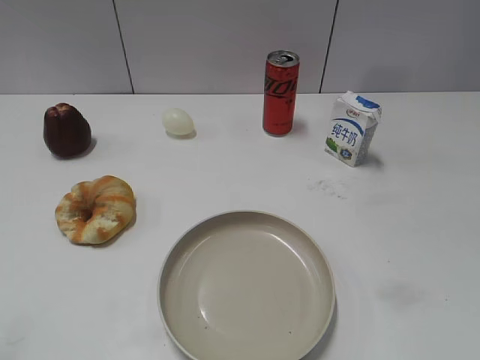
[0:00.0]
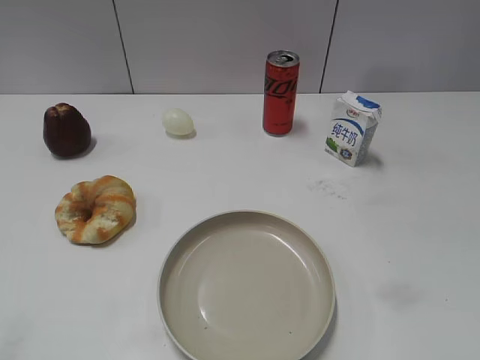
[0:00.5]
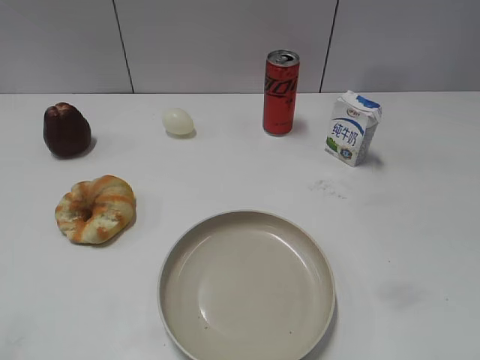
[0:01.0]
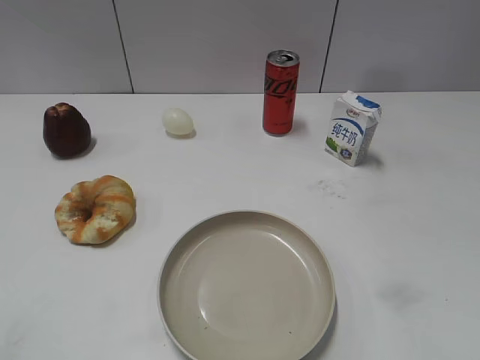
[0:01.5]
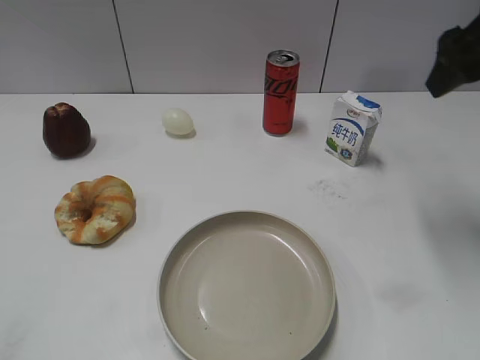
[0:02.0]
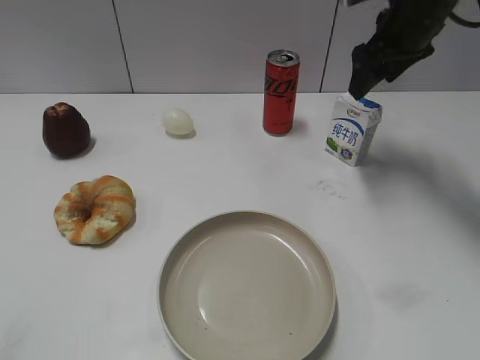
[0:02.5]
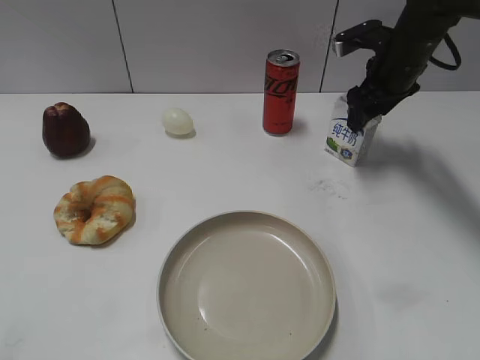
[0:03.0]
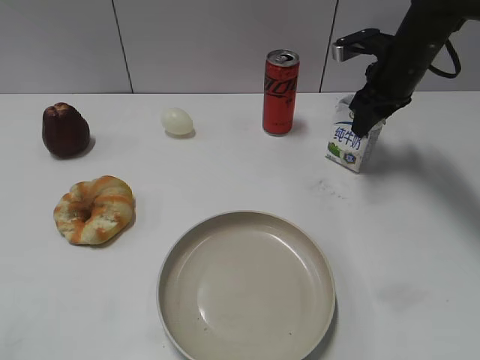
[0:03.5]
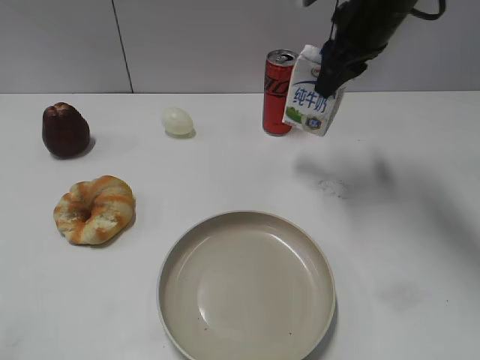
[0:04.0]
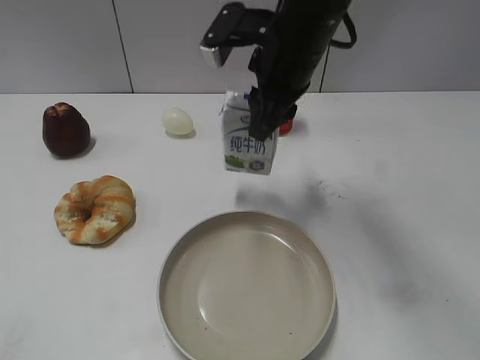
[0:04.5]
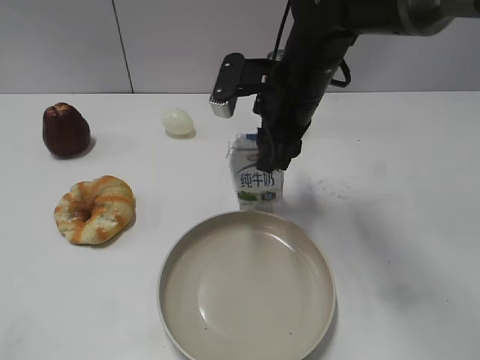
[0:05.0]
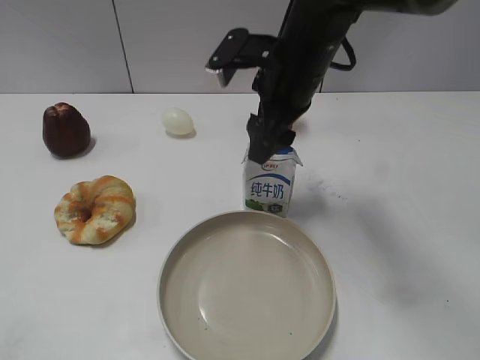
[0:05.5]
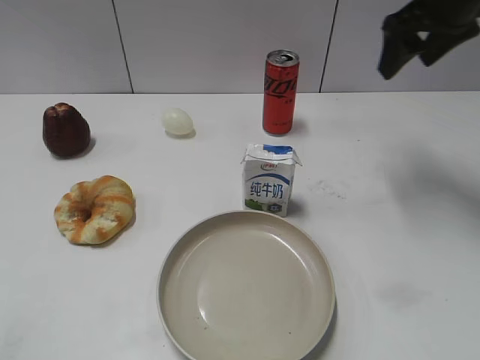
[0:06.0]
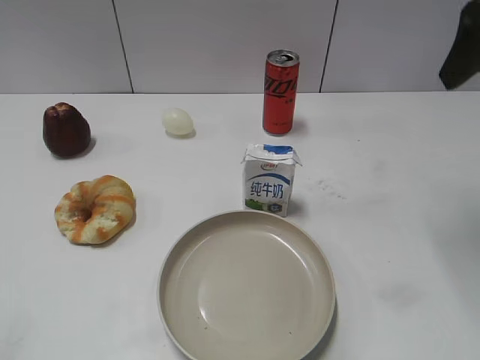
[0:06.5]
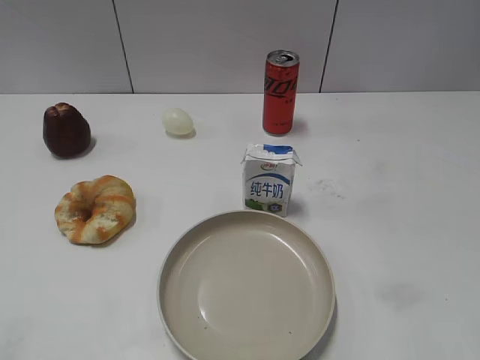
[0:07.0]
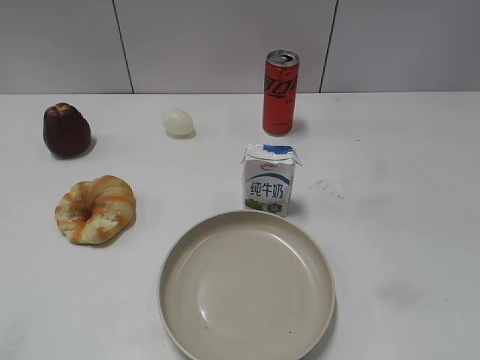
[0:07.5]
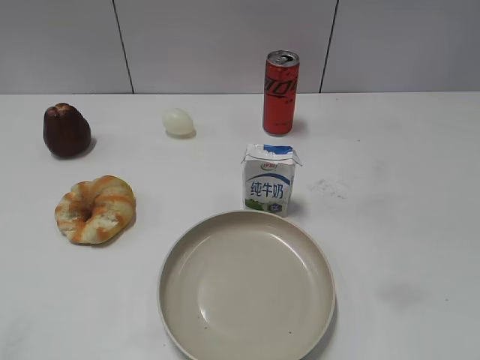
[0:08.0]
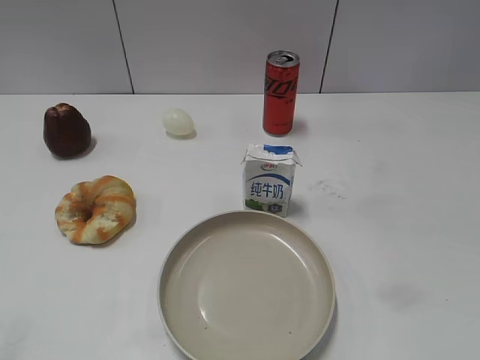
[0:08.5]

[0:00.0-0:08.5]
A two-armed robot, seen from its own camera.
Step, 0:01.0 to 0:03.5: Grasp the milk with right gripper.
Step, 0:04.0 to 0:05.0: Place the milk on the table with right gripper.
0:02.0 to 0:04.0: The right gripper heads to the left, forward and downward, covering about 15 cm, and closes.
0:04.0 to 0:06.5: The right gripper shifts some 20 cm backward, to the right and upward, and opens up.
0:06.5 to 0:08.5: The right gripper goes about 30 cm backward.

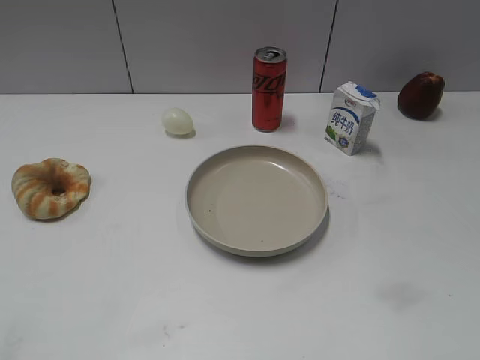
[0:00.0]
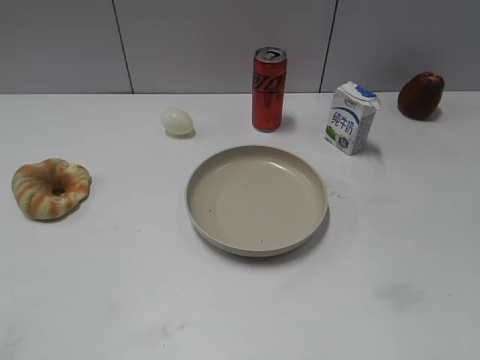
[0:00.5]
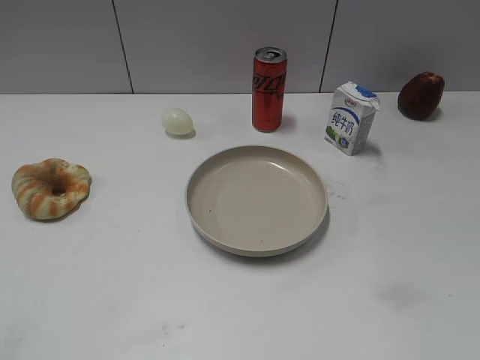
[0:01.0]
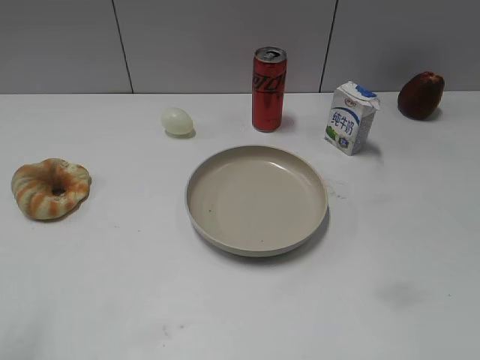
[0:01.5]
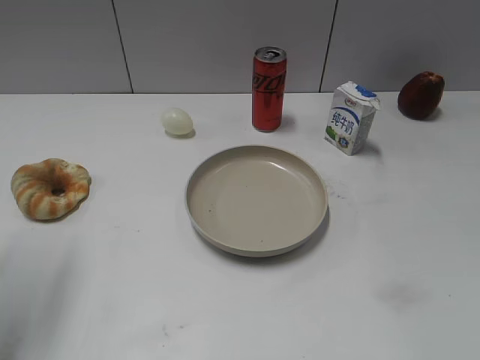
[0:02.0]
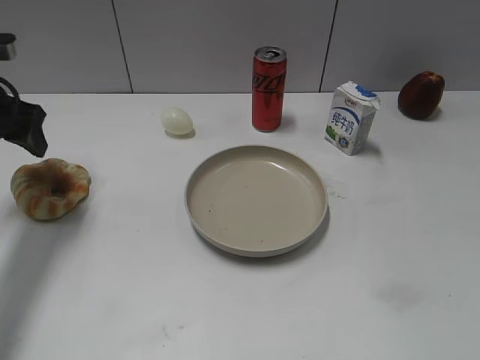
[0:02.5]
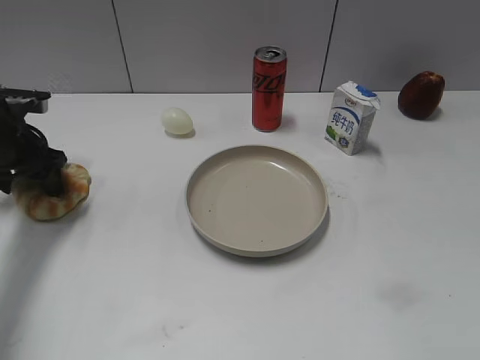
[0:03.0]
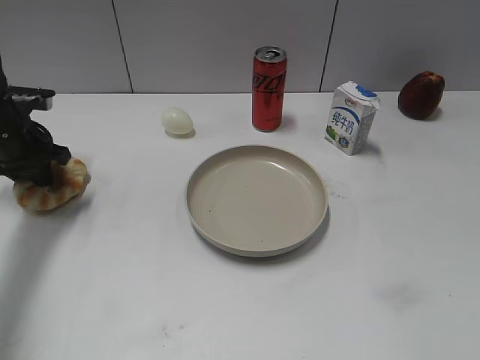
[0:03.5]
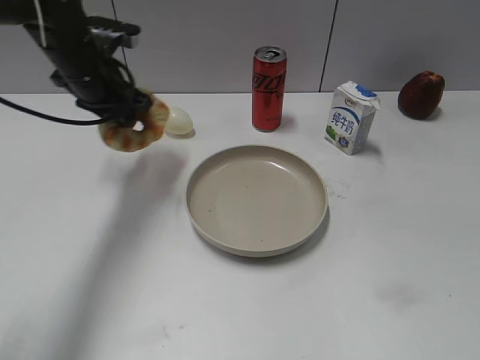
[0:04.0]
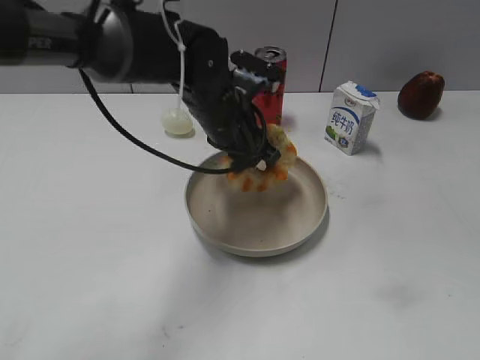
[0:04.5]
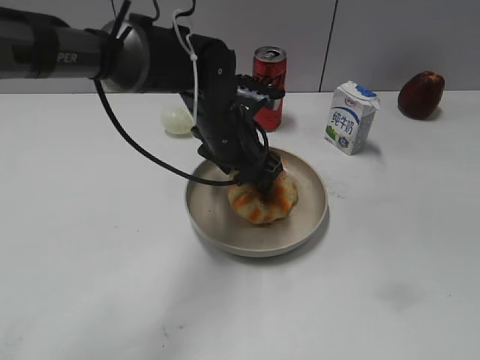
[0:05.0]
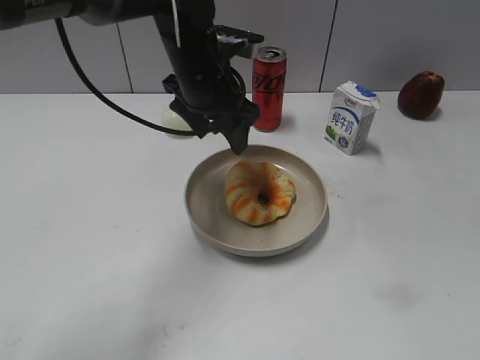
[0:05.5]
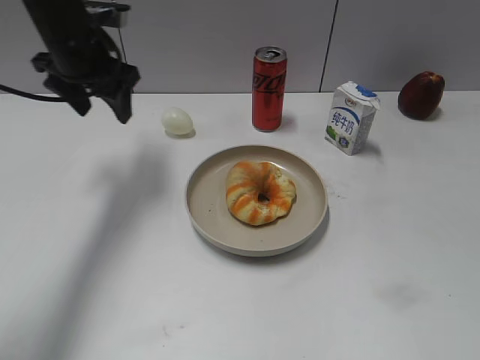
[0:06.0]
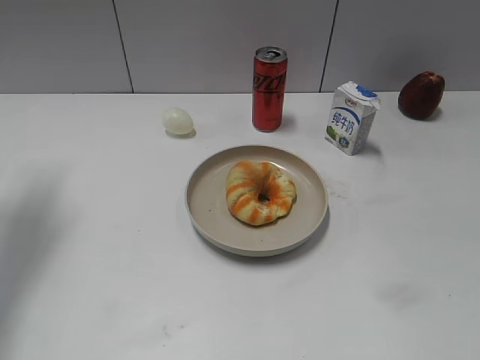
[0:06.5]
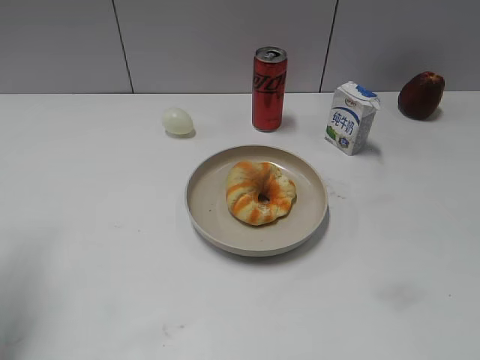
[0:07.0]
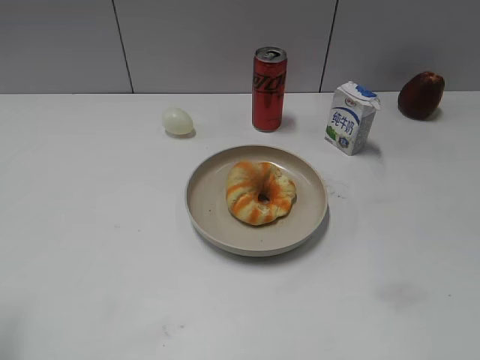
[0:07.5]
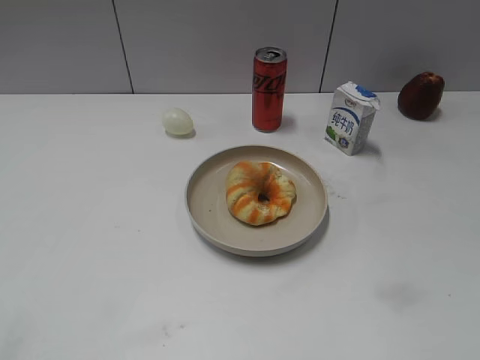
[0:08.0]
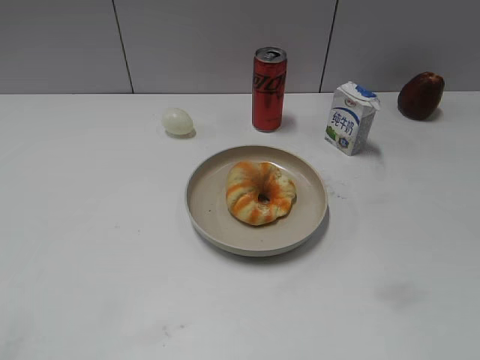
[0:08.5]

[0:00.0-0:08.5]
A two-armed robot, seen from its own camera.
Step, 0:01.0 to 0:03.0: Grasp the round bread with left gripper.
Step, 0:03.5 to 0:05.0: Place the round bread on the plate with left gripper.
0:00.0 to 0:02.0: The left gripper shifts roughly 35 cm forward.
0:02.0 to 0:04.0: The left gripper moves to the right, roughly 25 cm, and closes up.
0:04.0 to 0:06.5: The left gripper moves to the left and backward, some 30 cm, and opens up.
0:06.5 to 0:08.5: The left gripper travels backward by some 25 cm.
